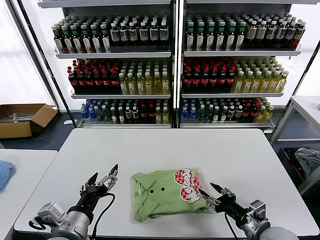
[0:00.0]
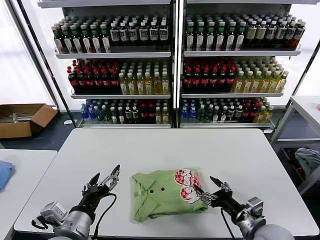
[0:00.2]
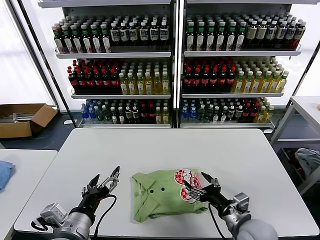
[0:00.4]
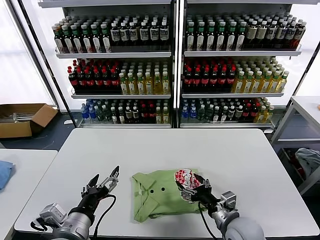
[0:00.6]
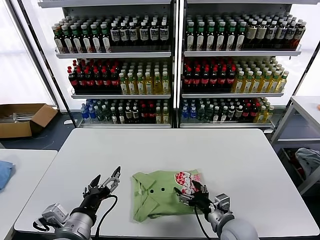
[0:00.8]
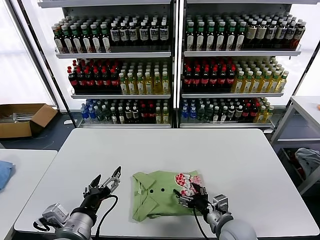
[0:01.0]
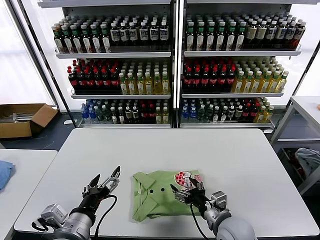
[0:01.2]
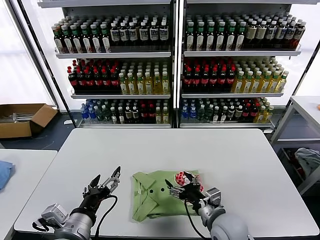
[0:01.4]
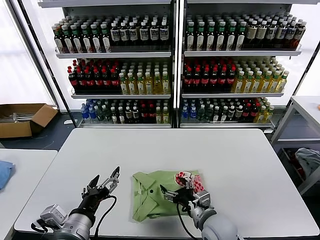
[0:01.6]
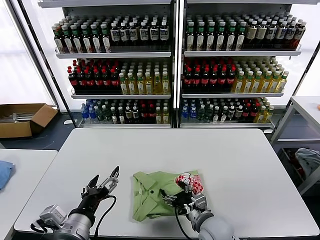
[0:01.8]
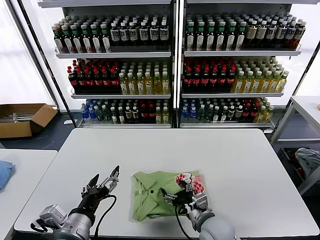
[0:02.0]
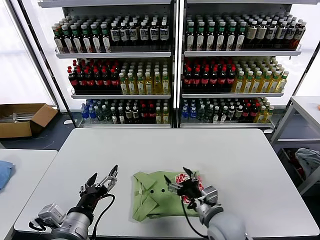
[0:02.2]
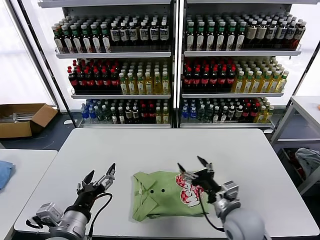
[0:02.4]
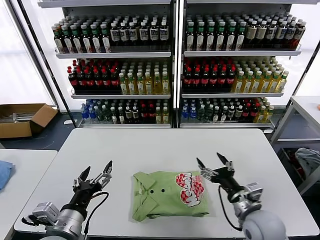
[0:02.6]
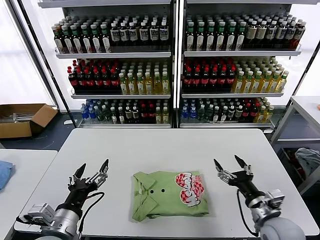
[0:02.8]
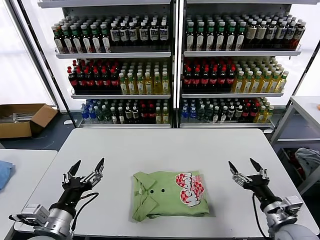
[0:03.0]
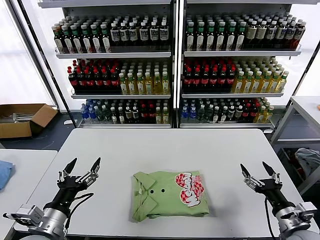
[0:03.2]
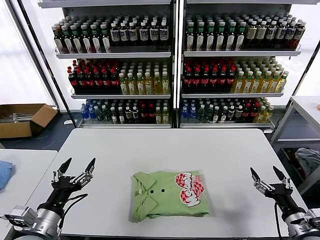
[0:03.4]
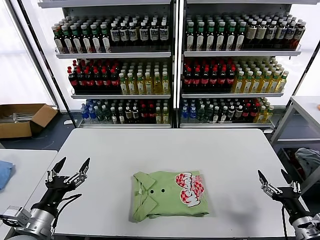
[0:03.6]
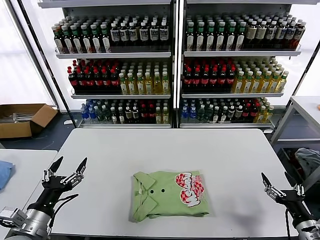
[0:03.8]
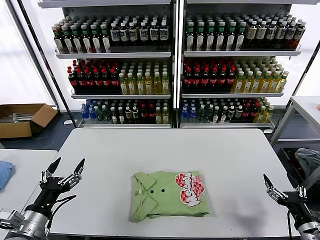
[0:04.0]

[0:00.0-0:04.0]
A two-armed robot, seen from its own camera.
Task of the whole recording: fold and organize the clothes.
Step, 0:00.0 to 0:02.0: Drag the clothes to the center of the table.
0:00.0 to 0:01.4: The right gripper is displaced to the left by approximately 10 cm, and opens.
0:01.4 to 0:02.6: The right gripper is displaced to the right by about 5 cm.
0:02.6 to 0:04.0: The right gripper shifts approximately 20 cm to the right and backward. Meanwhile the left gripper moves to the left, about 10 cm.
